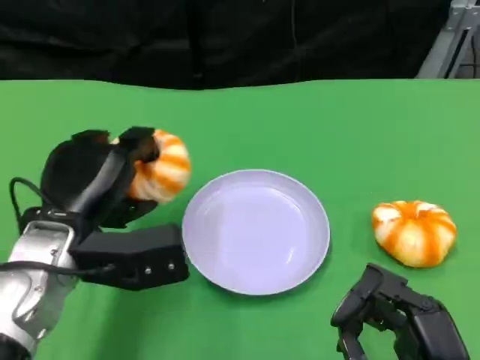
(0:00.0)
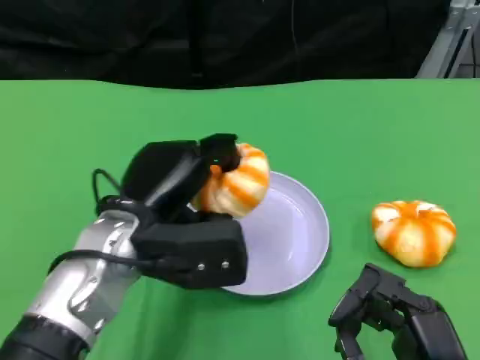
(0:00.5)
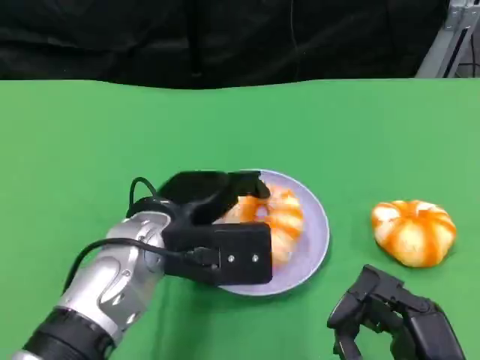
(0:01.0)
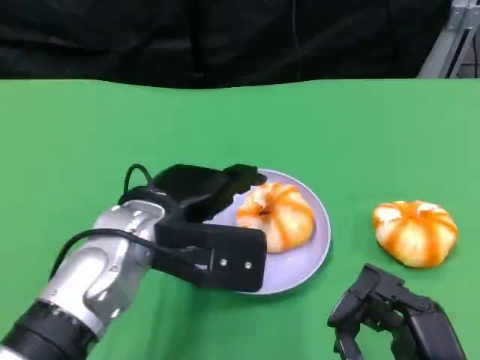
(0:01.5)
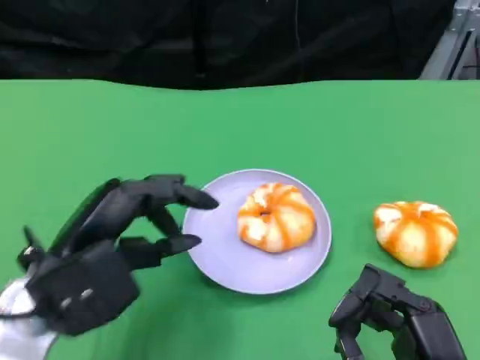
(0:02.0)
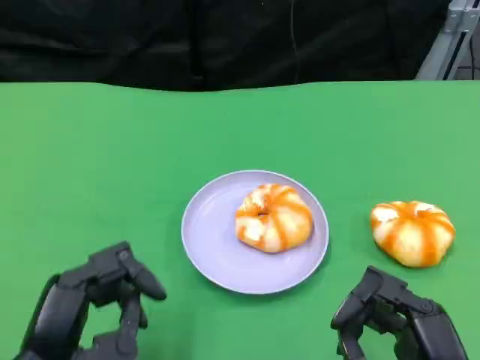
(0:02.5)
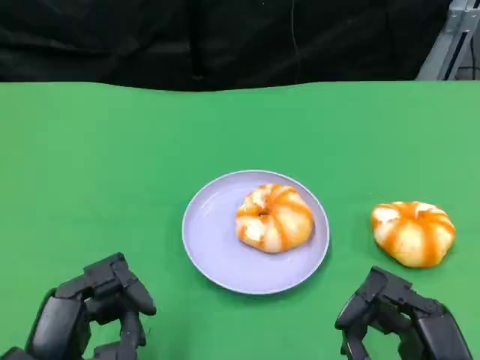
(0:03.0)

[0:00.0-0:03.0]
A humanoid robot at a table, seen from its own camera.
Task of the whole recording: Grasp the bread from the table and place it into the plate.
0:00.0 to 0:01.5: The left hand shifts roughly 5 cm to the right.
0:01.5 to 0:03.0: The left hand heads backward, to the left and downward, covering some 20 cm.
